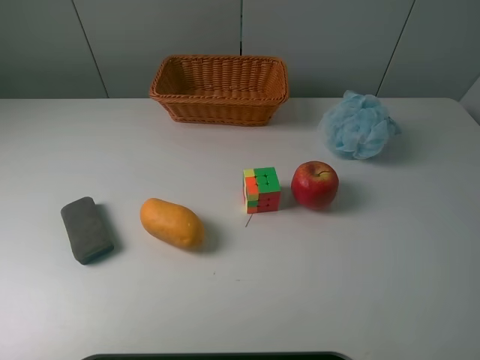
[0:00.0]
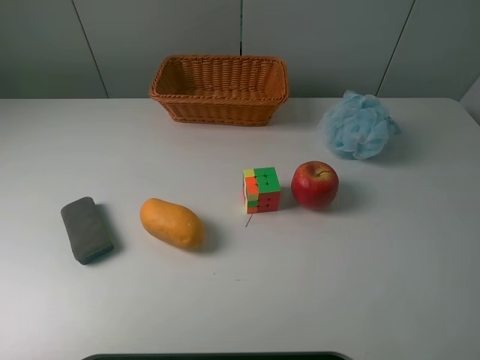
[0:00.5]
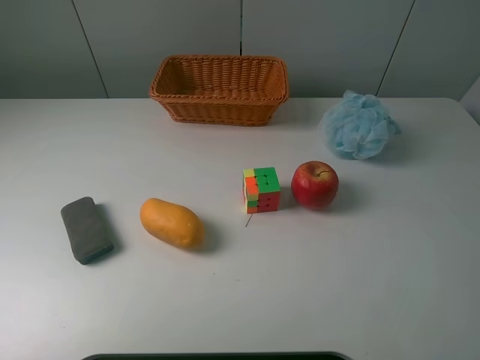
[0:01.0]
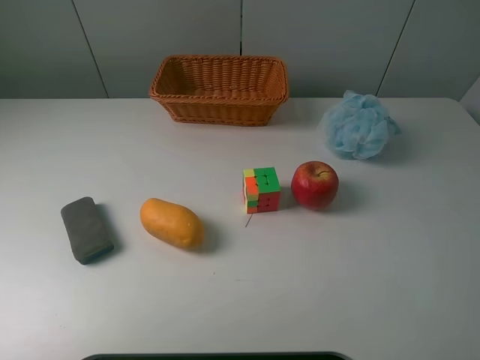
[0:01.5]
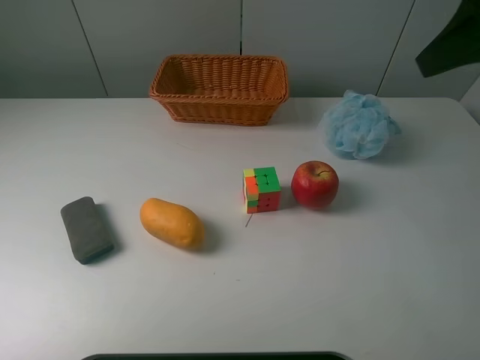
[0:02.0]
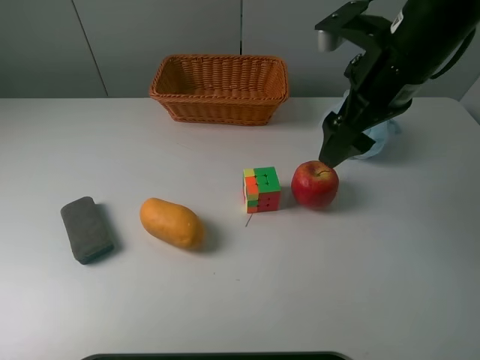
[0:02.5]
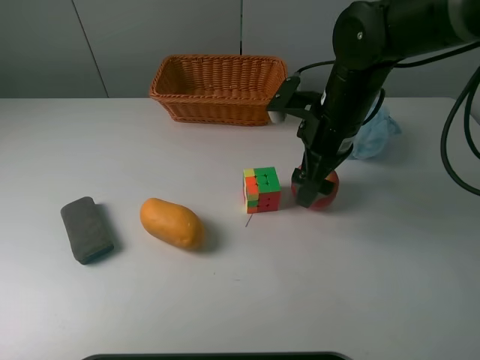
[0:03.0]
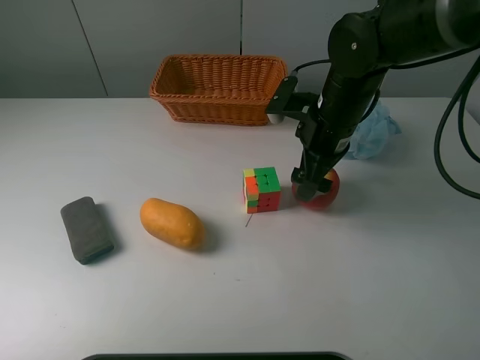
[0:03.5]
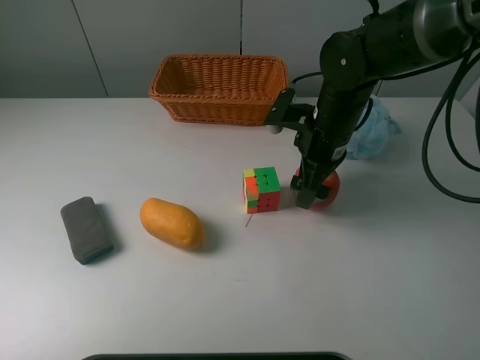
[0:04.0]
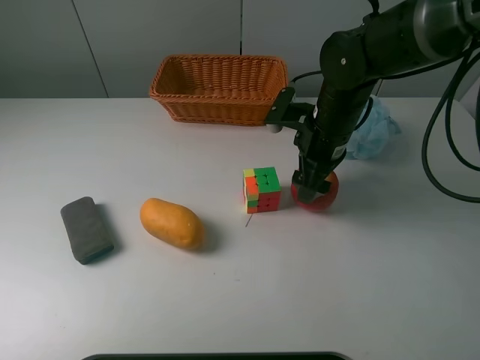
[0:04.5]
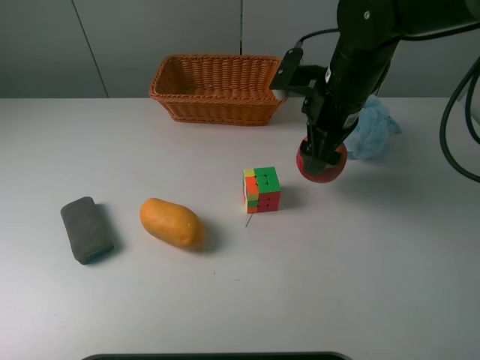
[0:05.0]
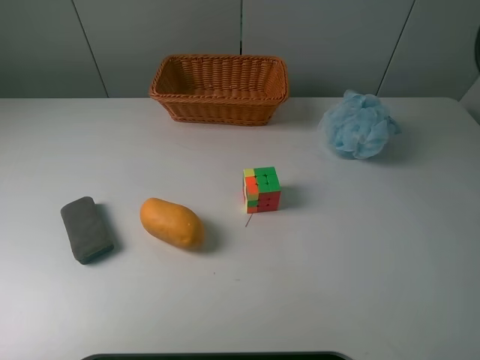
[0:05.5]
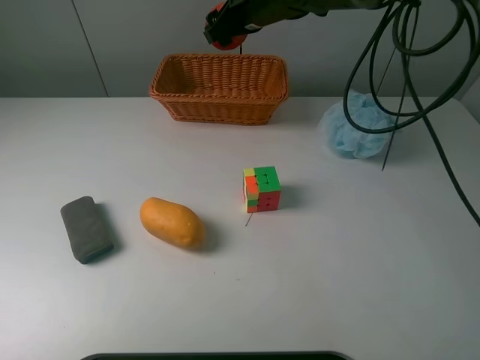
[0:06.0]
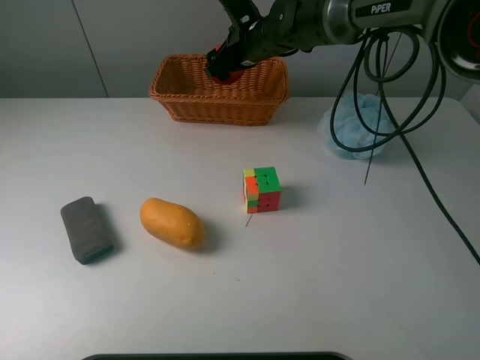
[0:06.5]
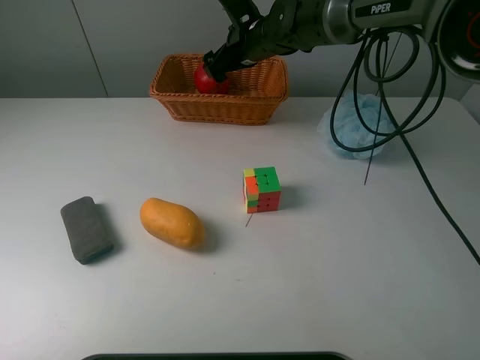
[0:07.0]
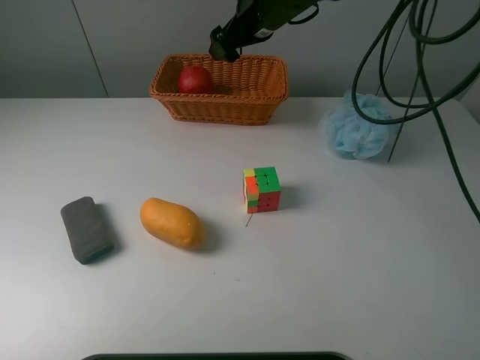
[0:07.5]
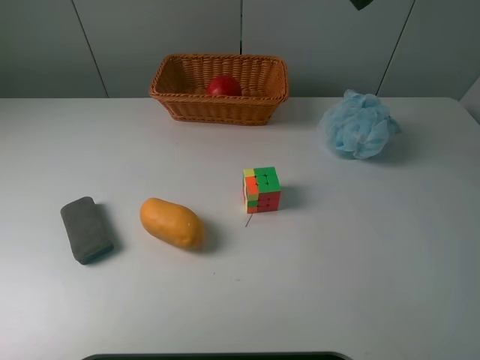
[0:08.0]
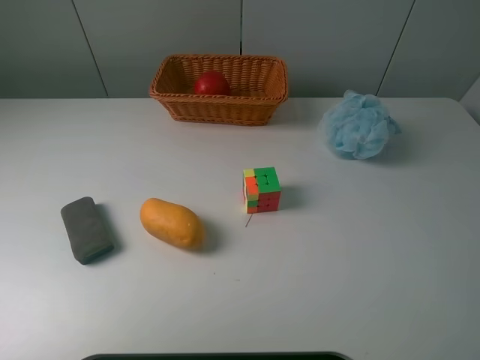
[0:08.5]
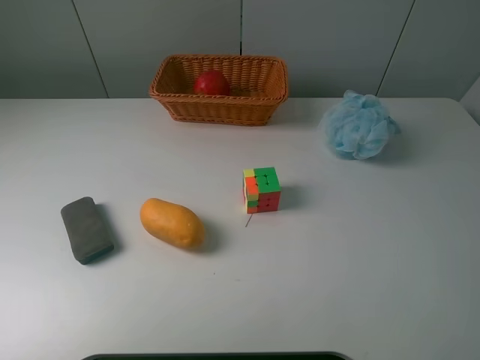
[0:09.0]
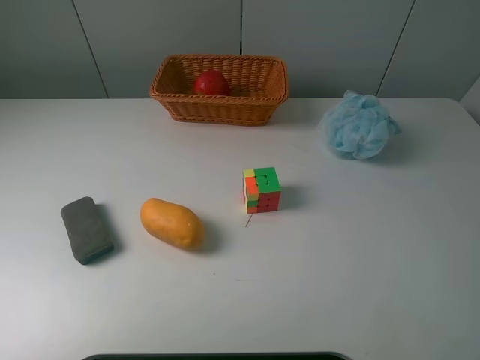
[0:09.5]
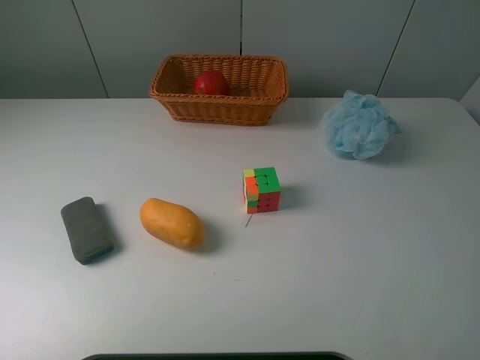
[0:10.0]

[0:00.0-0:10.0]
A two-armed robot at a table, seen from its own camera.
Task of the whole recording: use a picker to grab the item closest to the cube and place it in the basket.
Step, 0:00.0 to 0:04.5: Grasp the apple with the right gripper.
Step, 0:05.0 to 0:07.0: Place the apple into the basket with the right gripper.
0:00.0 to 0:02.0: The right gripper is displaced forward by some 20 cm.
0:02.0 to 0:04.0: The right gripper travels downward, to the left and forward by roughly 25 cm.
0:04.0 to 0:06.0: The right gripper goes roughly 20 cm forward, to the left and upward, and closes up.
0:06.0 to 0:08.0: The right gripper travels to the right, upward and backward by some 25 cm, and opens up.
